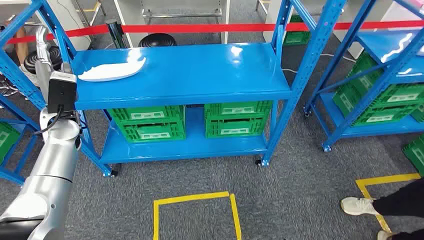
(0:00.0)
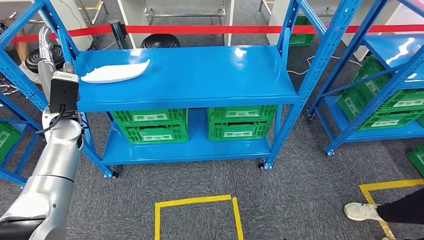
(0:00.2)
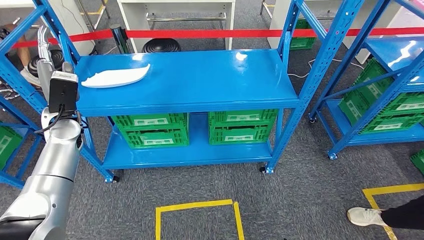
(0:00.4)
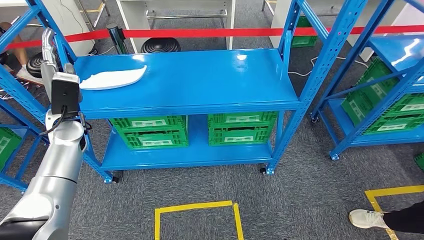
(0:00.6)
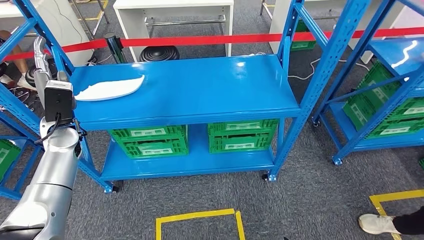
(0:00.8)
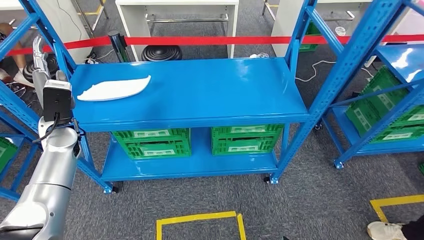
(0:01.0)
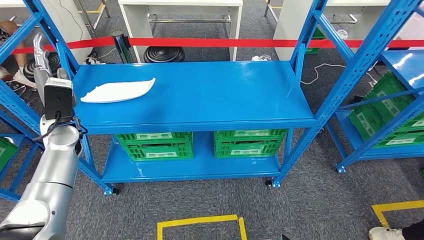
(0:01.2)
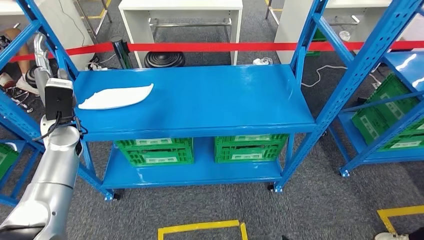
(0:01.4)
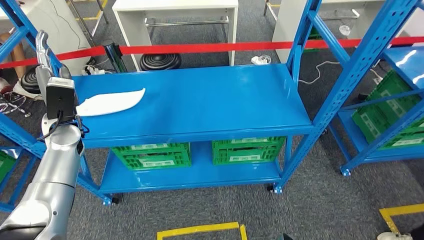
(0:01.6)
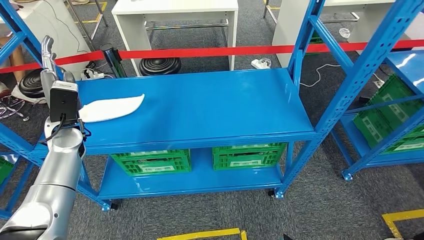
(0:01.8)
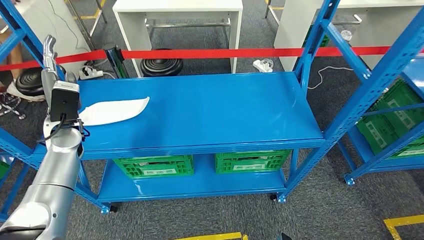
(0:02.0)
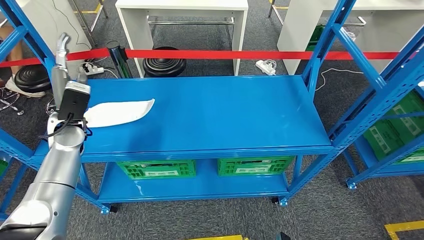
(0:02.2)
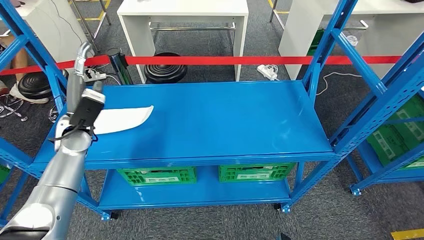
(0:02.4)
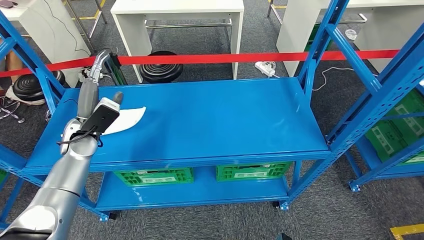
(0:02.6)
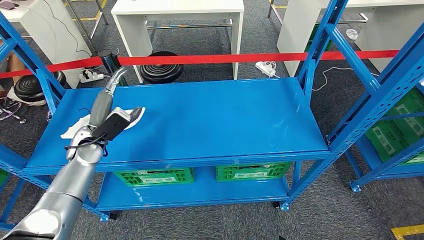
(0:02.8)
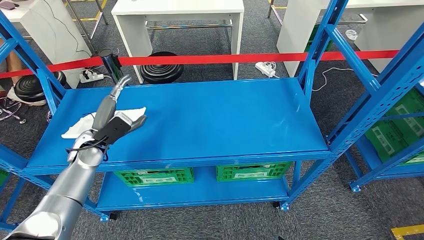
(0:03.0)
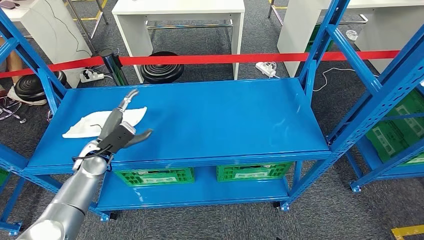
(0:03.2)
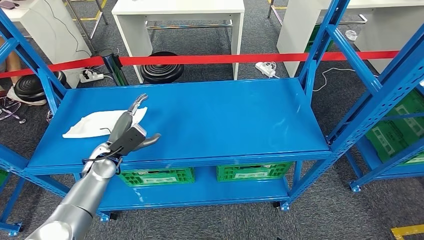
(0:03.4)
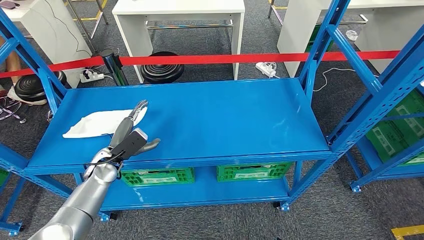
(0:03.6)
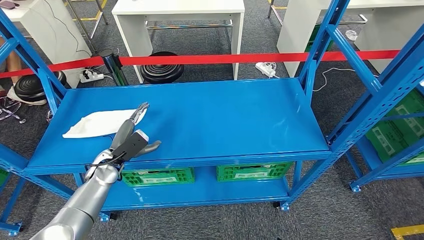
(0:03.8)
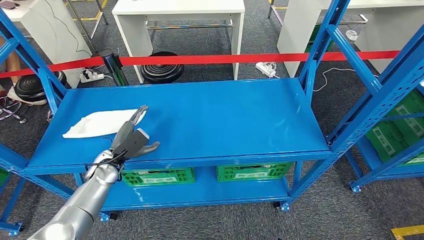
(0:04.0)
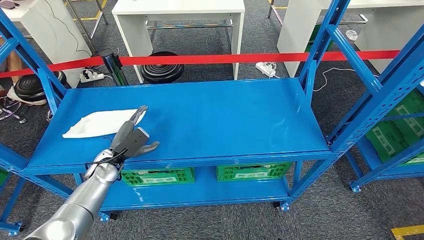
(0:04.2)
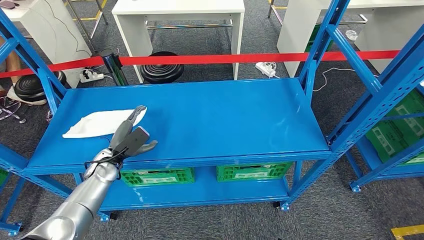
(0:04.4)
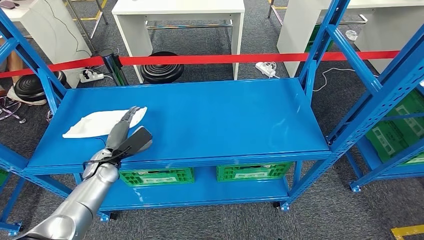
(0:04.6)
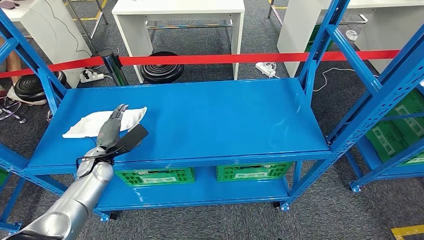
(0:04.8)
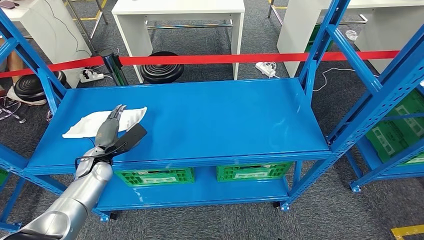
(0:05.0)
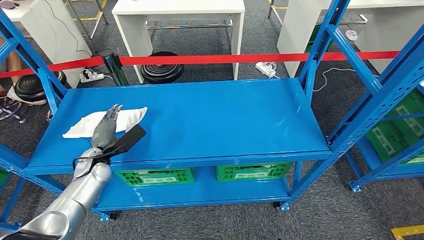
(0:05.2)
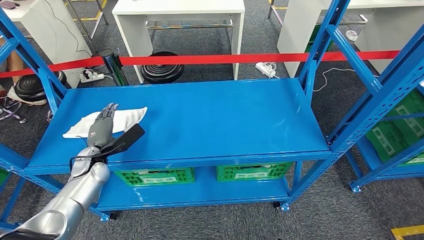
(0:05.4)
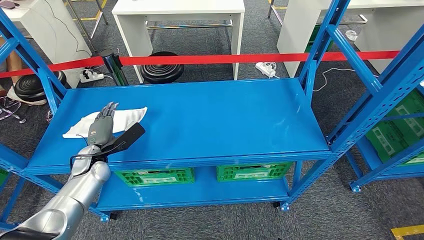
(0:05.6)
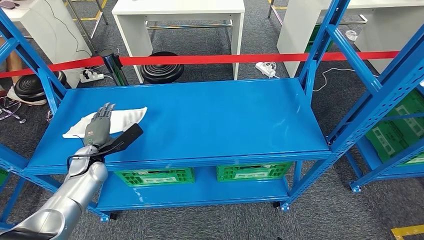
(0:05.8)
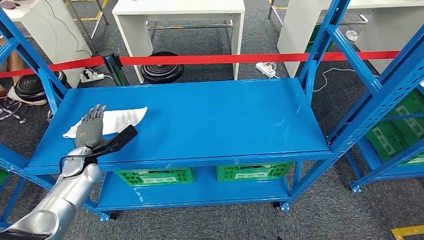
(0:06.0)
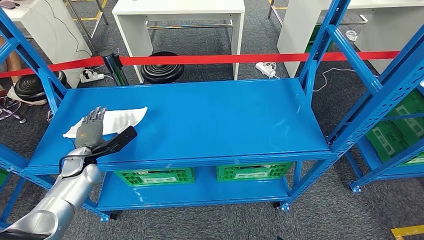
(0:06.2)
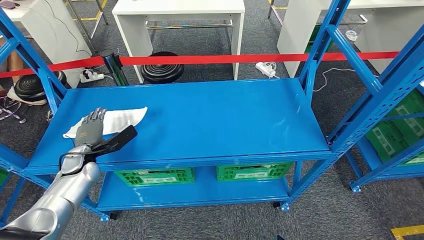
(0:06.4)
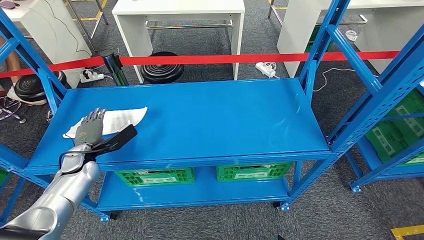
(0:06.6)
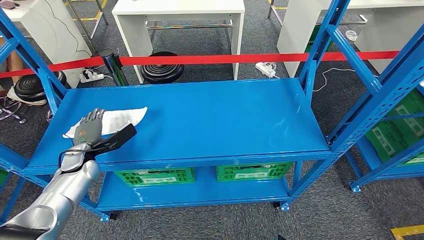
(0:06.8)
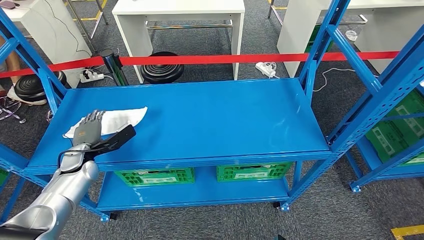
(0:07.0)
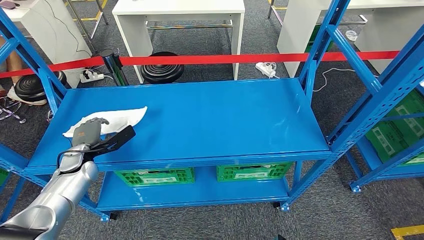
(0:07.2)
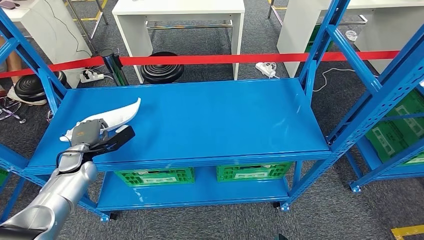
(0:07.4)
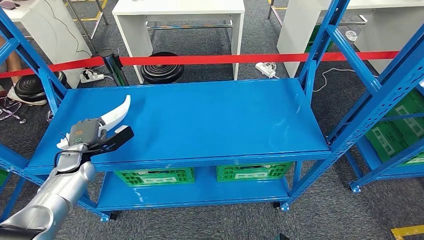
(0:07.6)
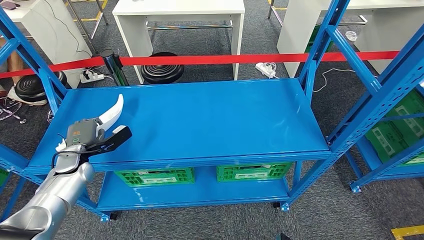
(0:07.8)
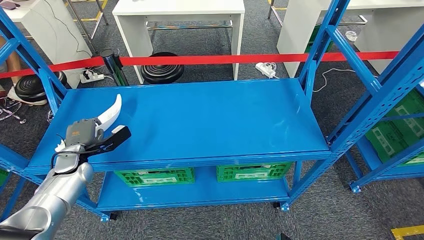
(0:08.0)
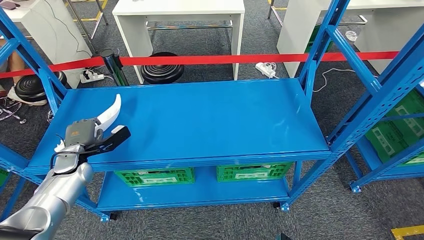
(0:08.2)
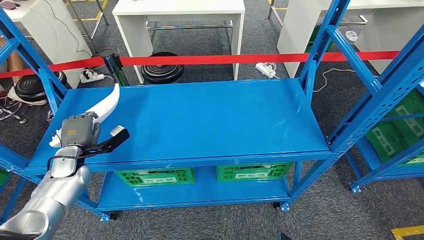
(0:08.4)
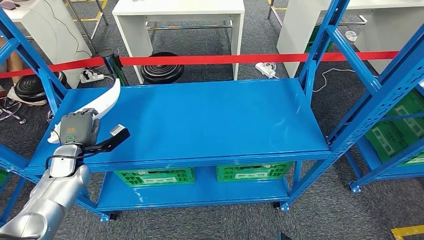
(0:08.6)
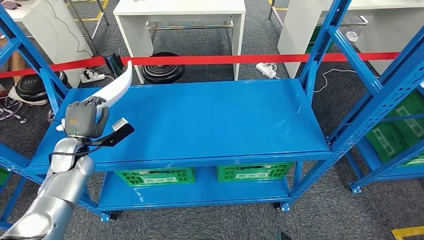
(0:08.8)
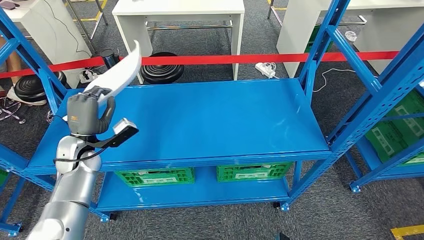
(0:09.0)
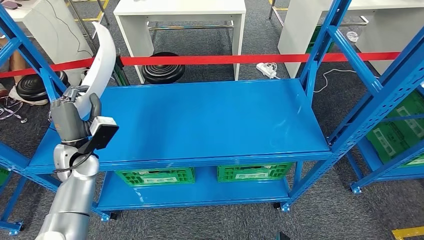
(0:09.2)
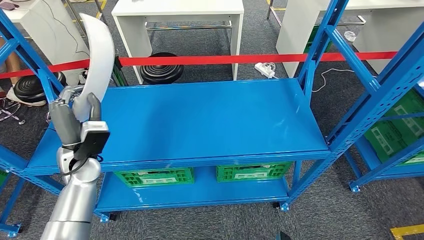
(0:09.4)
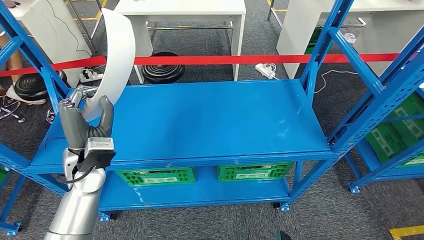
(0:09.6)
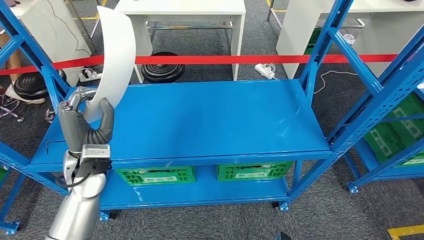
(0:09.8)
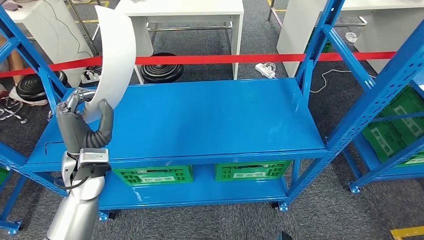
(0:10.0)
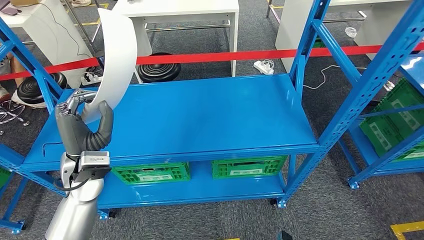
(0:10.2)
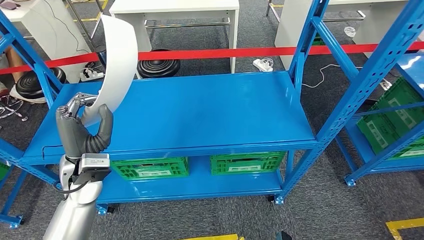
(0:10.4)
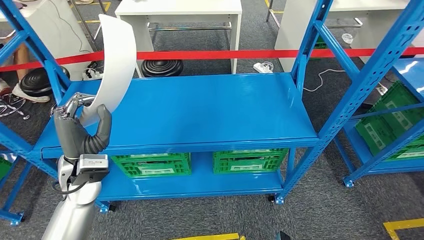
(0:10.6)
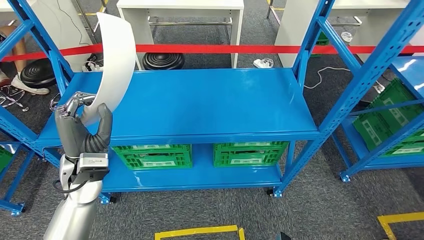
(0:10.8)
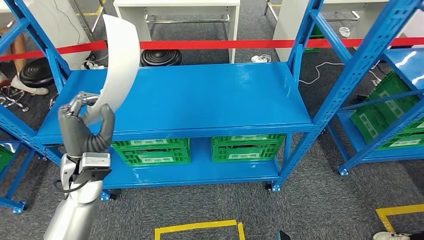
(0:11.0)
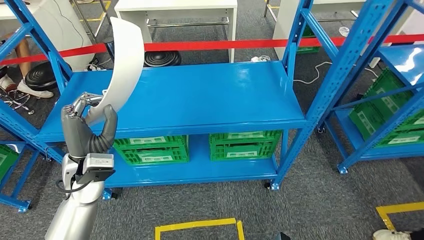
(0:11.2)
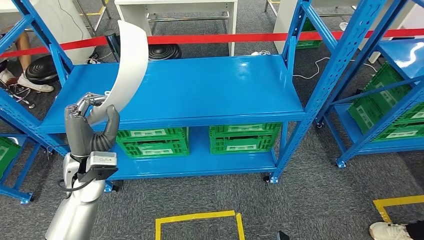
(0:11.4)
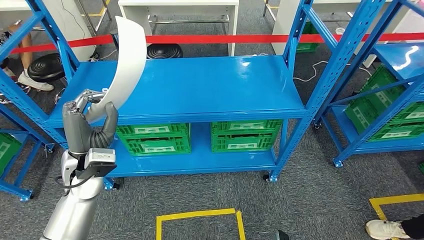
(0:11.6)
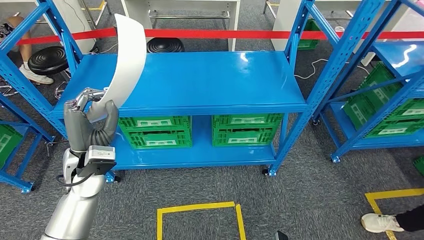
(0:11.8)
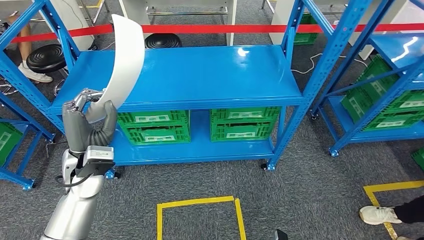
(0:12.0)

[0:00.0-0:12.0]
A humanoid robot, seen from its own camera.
Step, 0:00.0 to 0:09.4: Pick up the small parts from the shelf.
0:03.0 to 0:04.4: The left hand goes about 5 cm downward.
0:04.4 to 0:06.0: The left hand is displaced to the left by approximately 5 cm.
0:06.0 to 0:07.6: There are only small adjustments of the hands.
0:07.6 to 0:09.0: The left hand shifts roughly 5 cm upward and to the right.

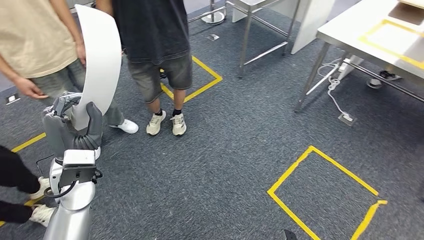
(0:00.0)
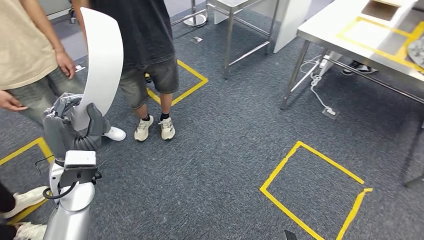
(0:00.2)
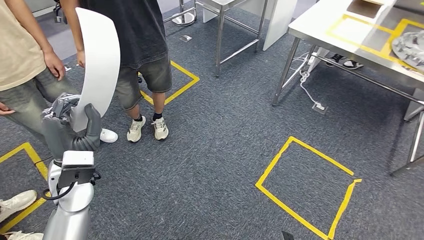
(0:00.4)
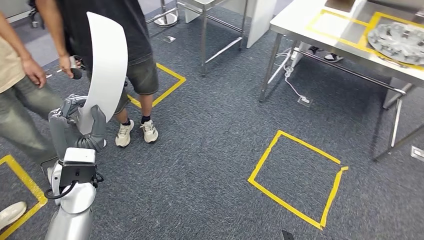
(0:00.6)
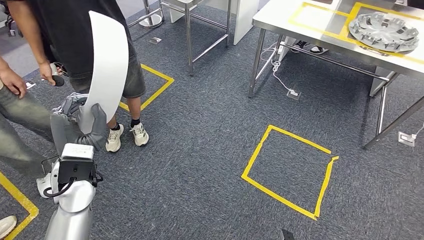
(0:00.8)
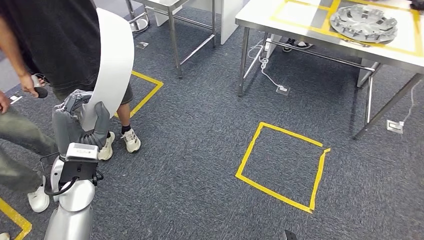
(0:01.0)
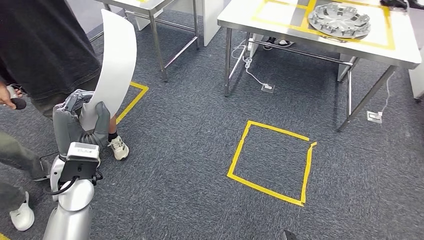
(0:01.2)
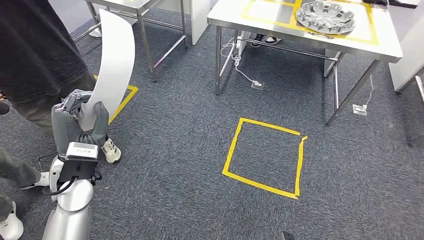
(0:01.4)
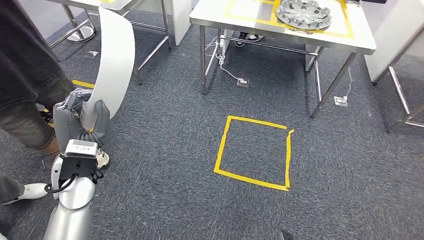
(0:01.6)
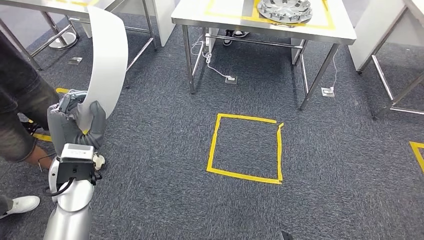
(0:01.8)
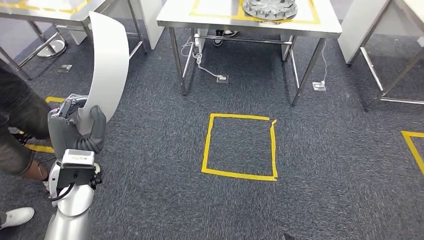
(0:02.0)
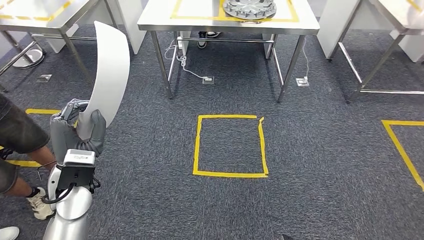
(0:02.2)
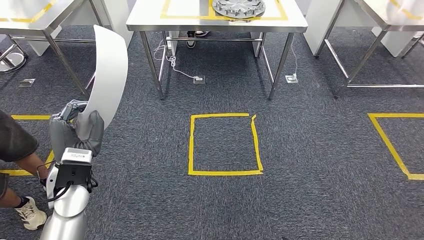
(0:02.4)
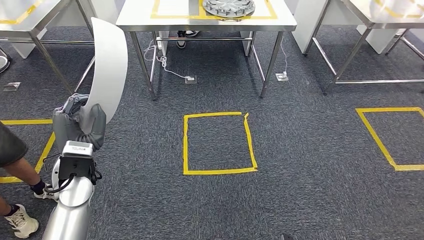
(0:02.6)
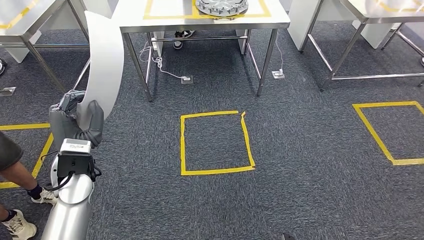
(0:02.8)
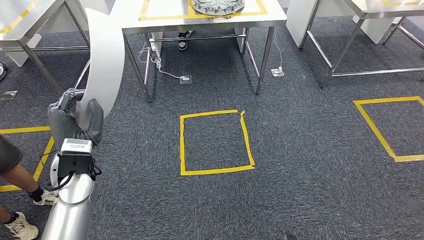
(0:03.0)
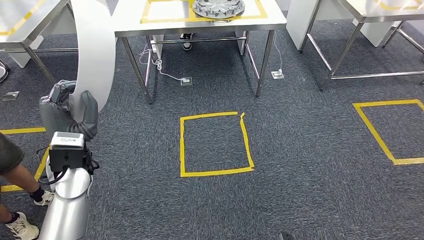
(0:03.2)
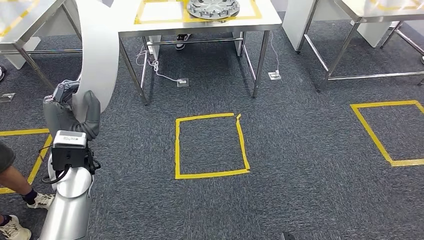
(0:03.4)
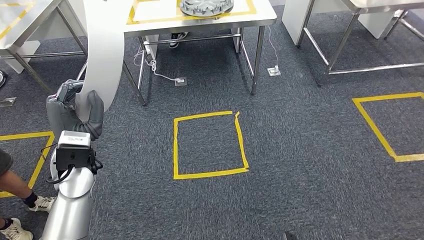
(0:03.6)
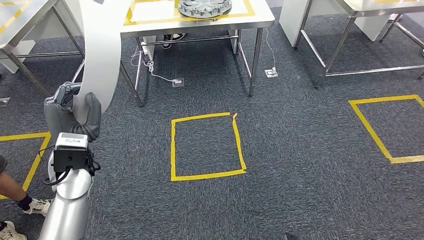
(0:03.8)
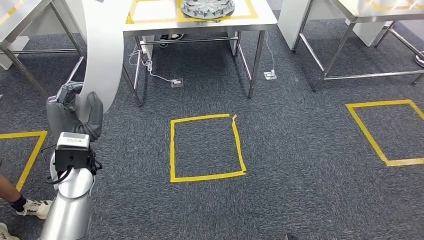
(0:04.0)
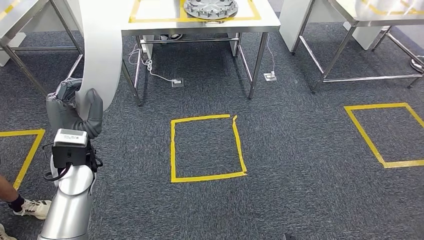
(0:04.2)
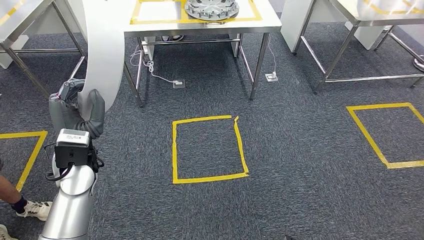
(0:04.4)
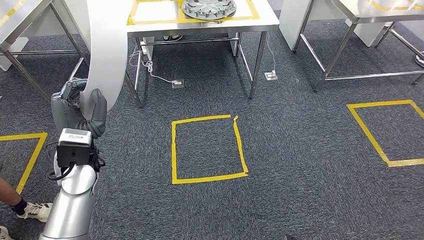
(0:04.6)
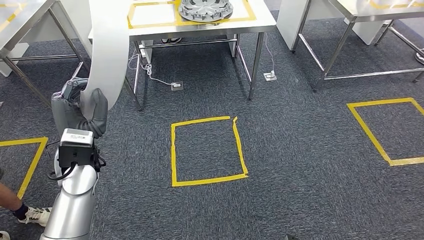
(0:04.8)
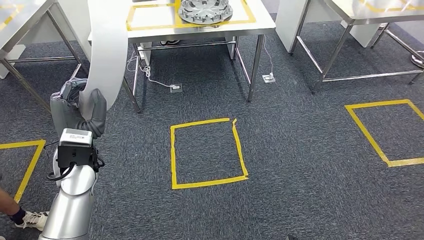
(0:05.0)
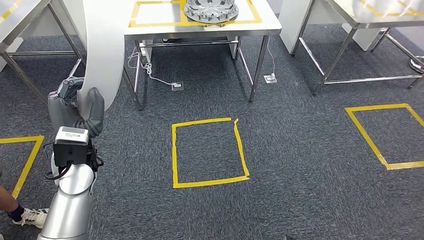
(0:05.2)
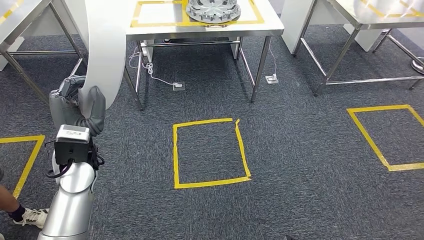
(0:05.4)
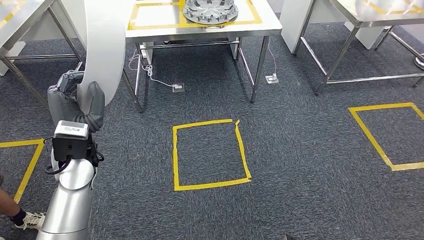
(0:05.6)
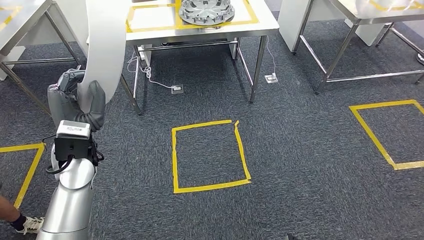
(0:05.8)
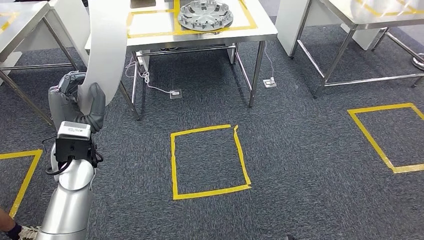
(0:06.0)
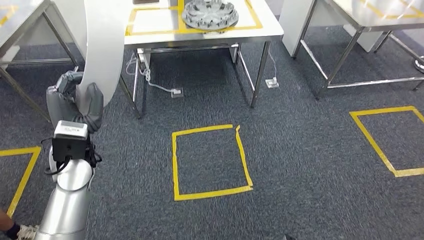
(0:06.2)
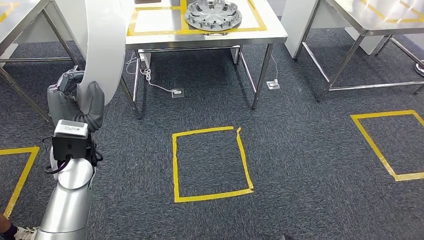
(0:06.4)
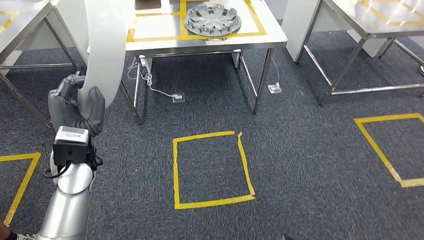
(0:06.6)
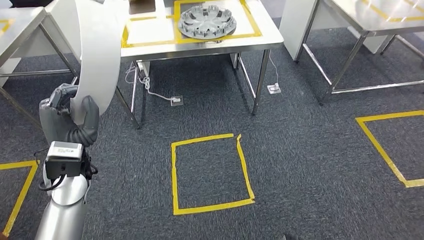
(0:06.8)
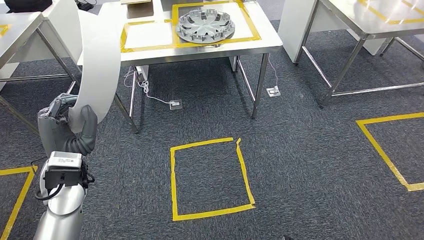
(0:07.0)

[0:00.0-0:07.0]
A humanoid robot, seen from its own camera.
0:04.2 to 0:05.6: The hands stay close to where they were, moving slightly.
